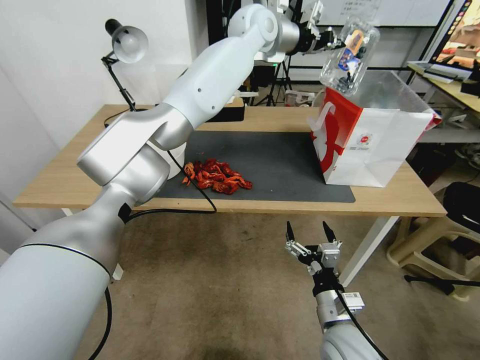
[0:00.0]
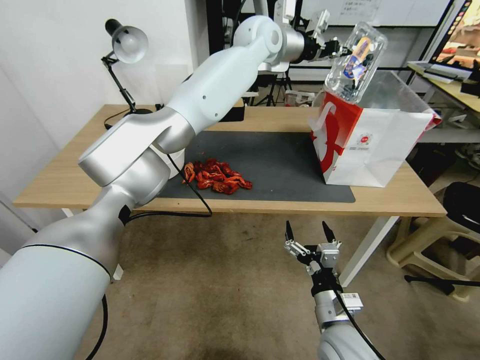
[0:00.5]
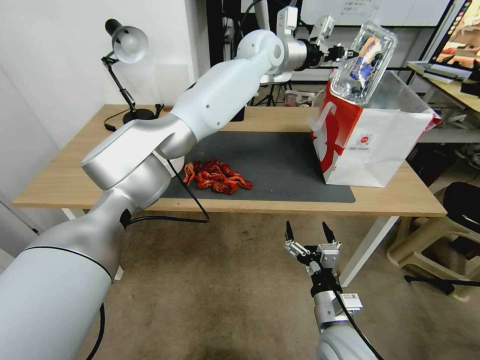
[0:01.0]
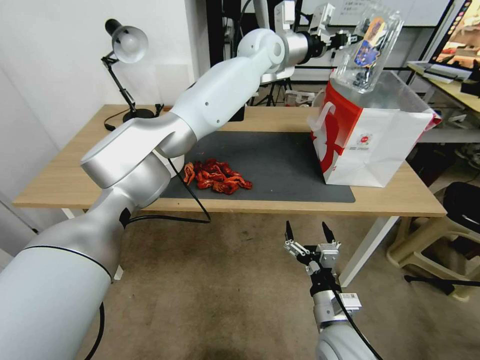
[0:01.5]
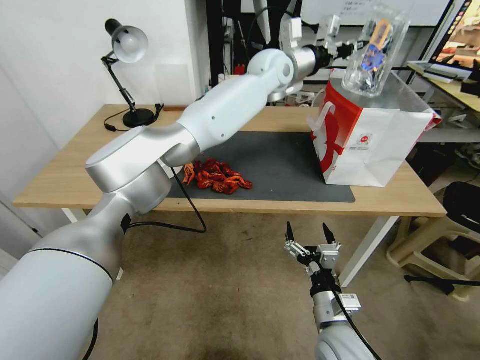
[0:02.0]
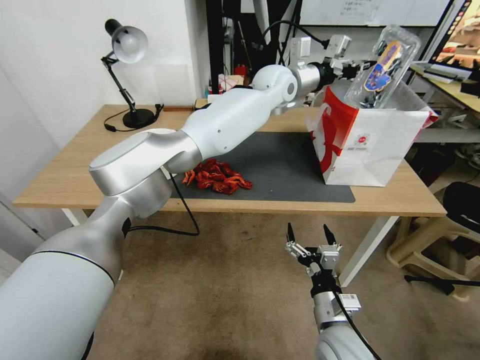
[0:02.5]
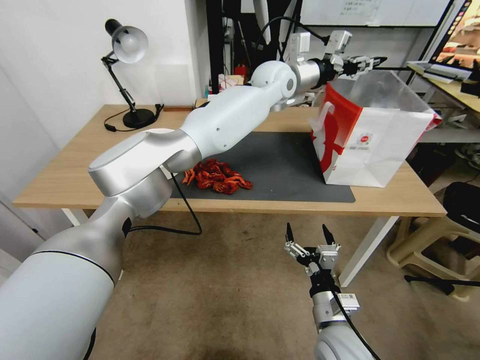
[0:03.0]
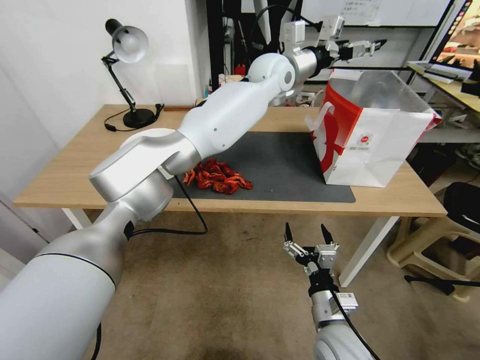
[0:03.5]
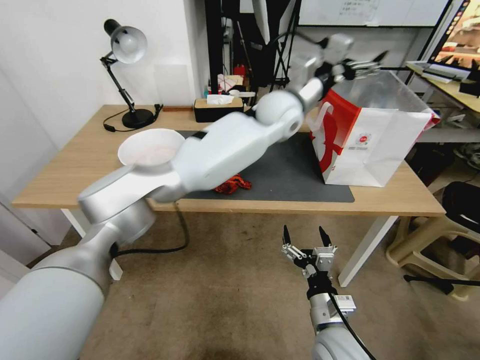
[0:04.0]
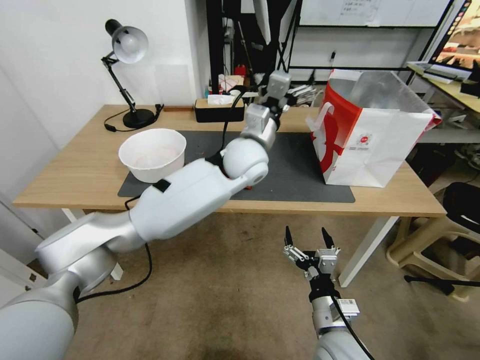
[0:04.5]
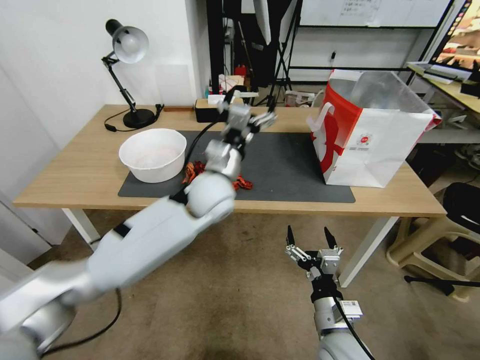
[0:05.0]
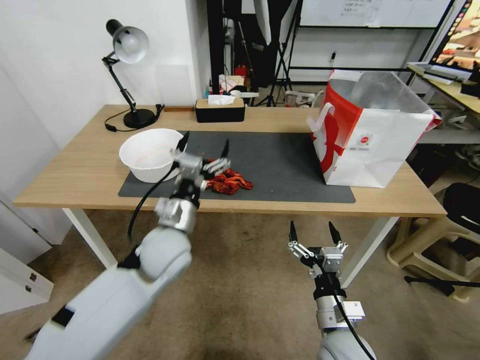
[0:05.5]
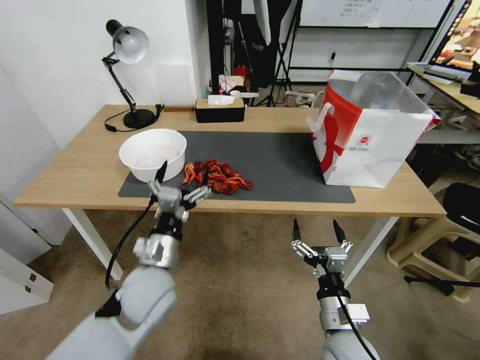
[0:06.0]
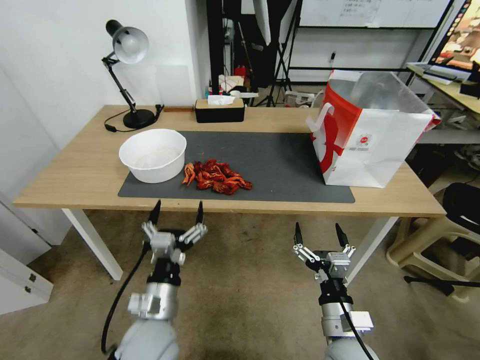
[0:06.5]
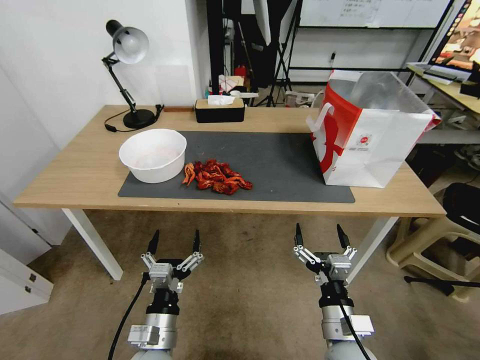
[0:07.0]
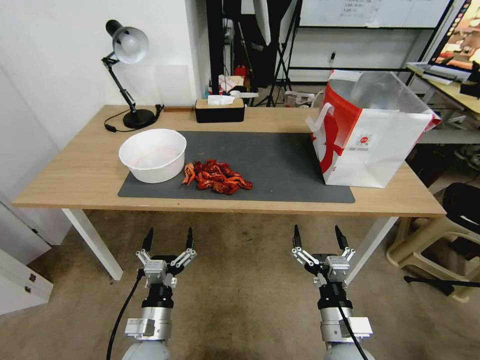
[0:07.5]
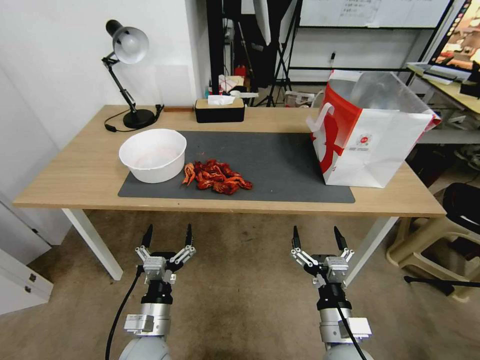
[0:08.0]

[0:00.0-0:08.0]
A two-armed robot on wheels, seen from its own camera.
Task of the whole recording: Close the takeout container lid, then place the container into the takeout bag.
0.0 to 2.0 s: The left gripper travels downward by roughly 10 cm.
2.0 to 4.0 s: The left gripper goes about 10 cm backward, and opens up.
4.0 to 6.0 s: The left gripper is displaced backward, to the left and downward by about 50 cm.
6.0 to 8.0 s: The left gripper is displaced downward and backward by some 15 cm.

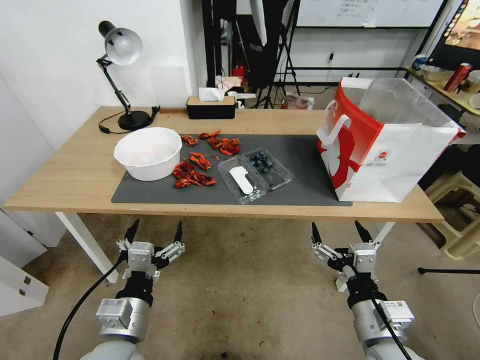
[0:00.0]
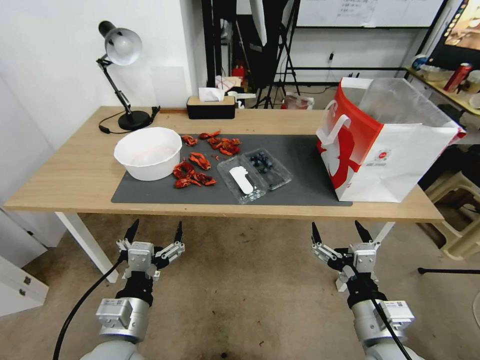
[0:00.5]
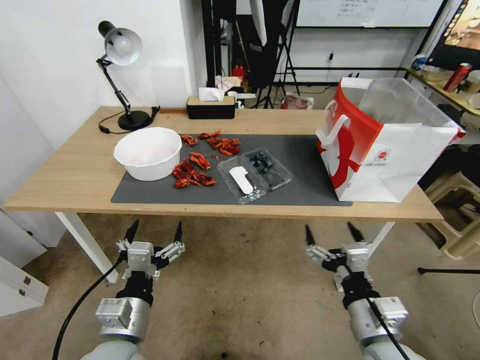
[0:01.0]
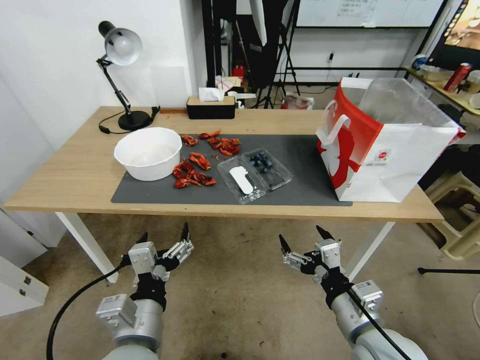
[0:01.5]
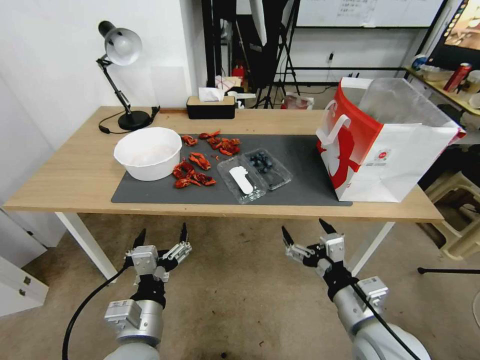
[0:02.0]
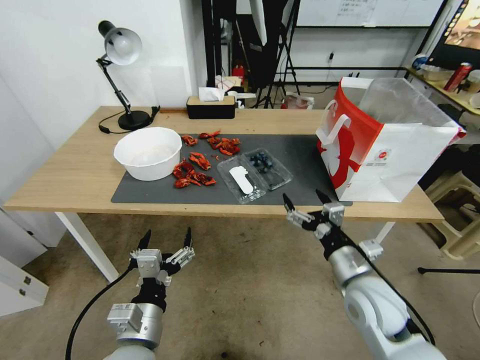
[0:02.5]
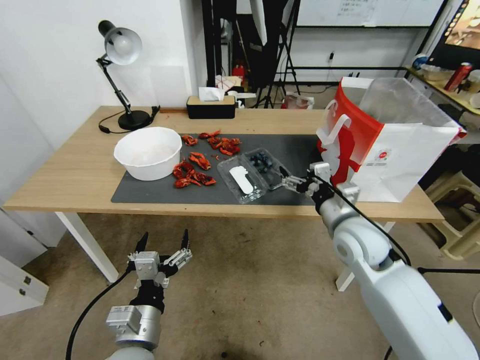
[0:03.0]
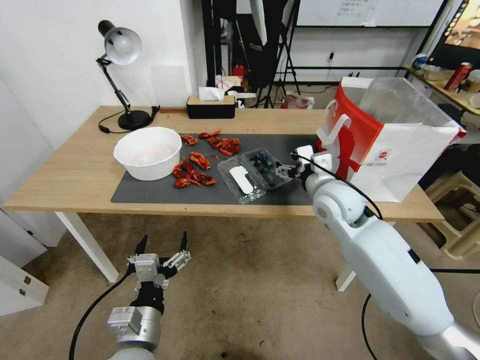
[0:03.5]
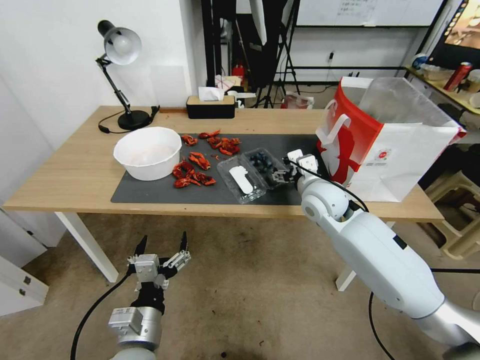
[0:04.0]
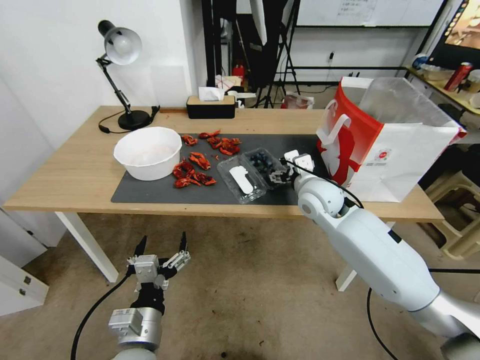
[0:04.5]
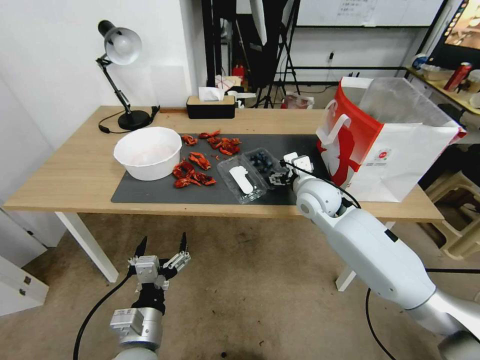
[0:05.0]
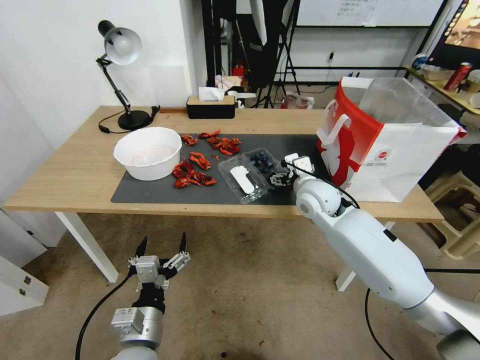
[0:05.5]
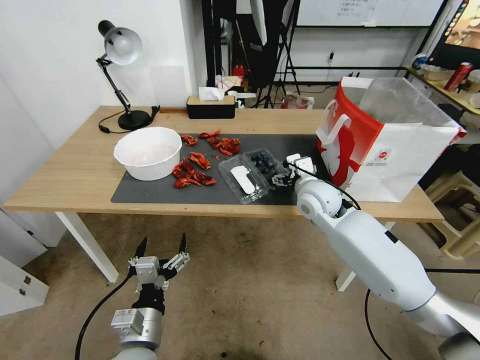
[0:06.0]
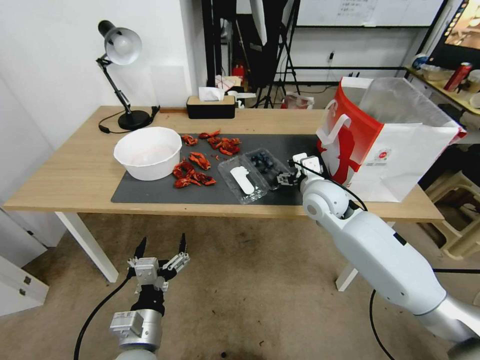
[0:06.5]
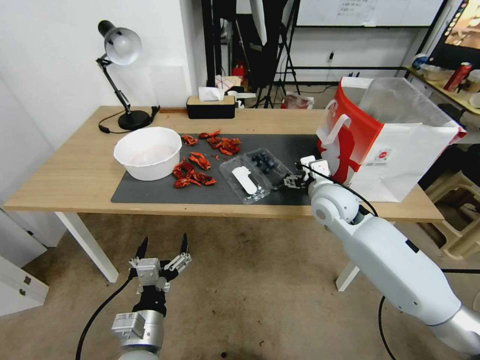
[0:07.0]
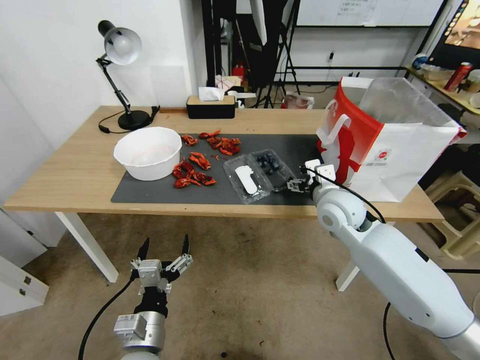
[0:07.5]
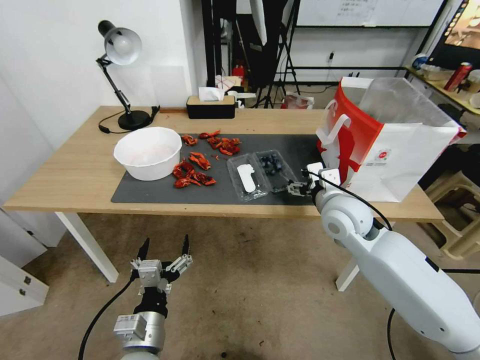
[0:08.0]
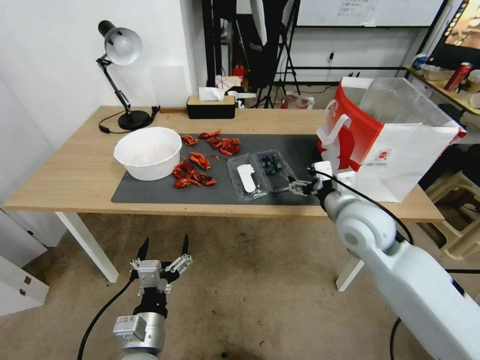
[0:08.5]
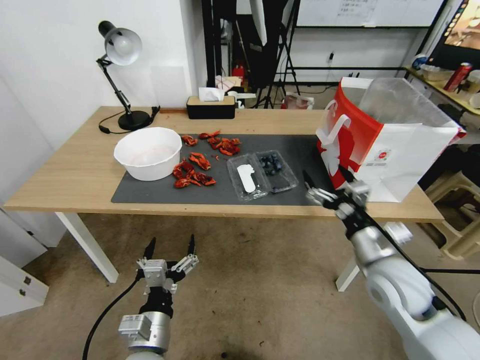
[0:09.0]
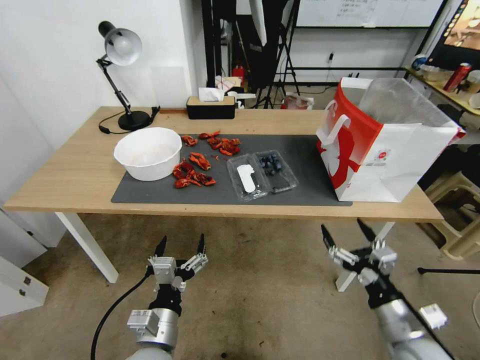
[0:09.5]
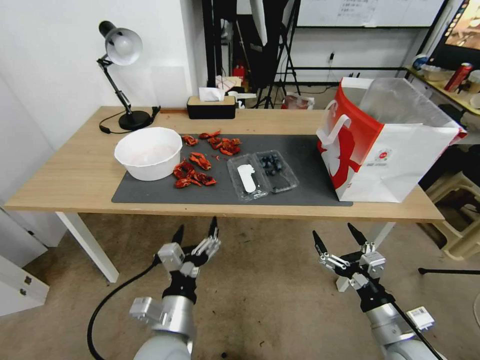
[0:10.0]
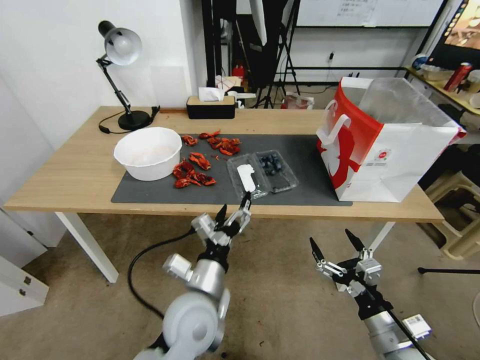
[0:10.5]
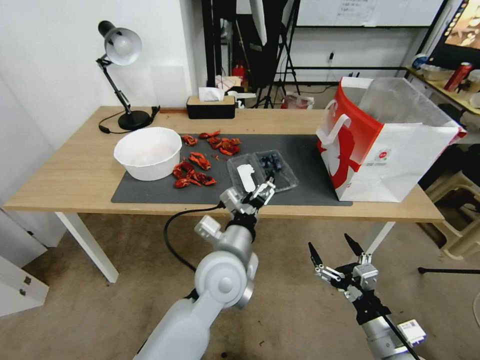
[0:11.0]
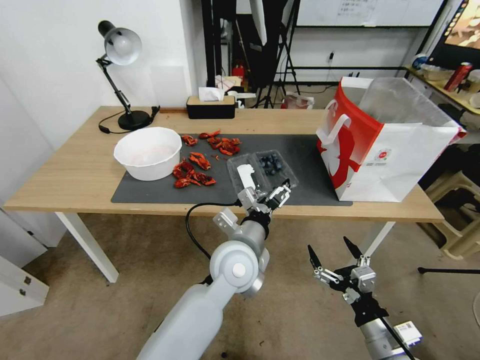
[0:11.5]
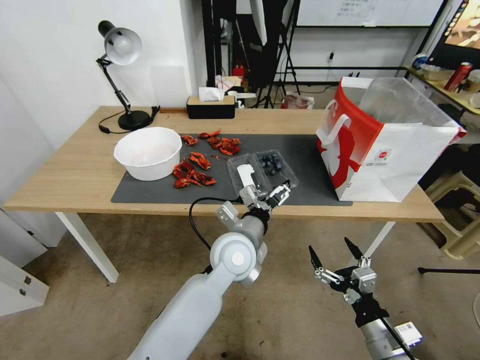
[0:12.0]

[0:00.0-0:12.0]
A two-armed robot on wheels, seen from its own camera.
Task of the whole recording: Close the takeout container lid, then place the container into the takeout bag.
2.0 to 4.0 s: The right gripper shifts roughly 25 cm forward.
4.0 to 6.0 s: The grippers move only a little.
6.0 to 8.0 s: The right gripper is displaced backward by some 5 cm.
8.0 to 10.0 s: The right gripper shifts some 25 cm backward and downward; the left gripper moves to the right, roughly 5 cm.
10.0 to 12.0 s: The left gripper travels forward and to the right by approximately 20 cm.

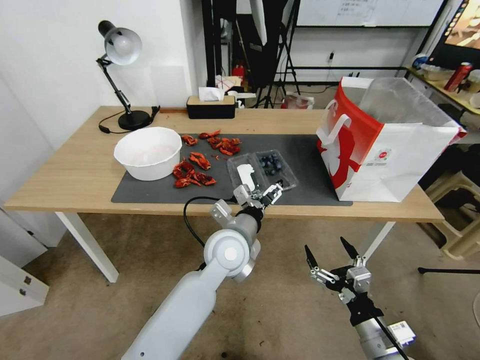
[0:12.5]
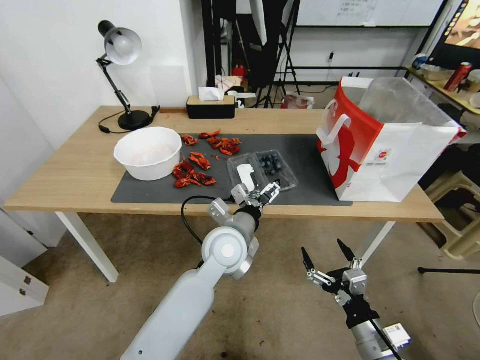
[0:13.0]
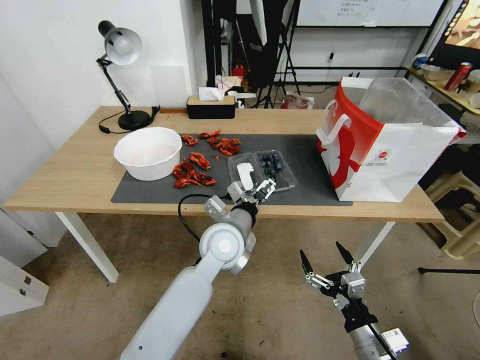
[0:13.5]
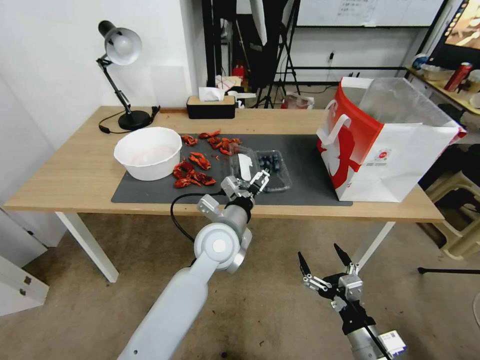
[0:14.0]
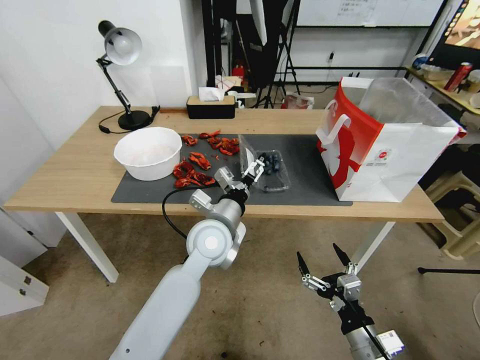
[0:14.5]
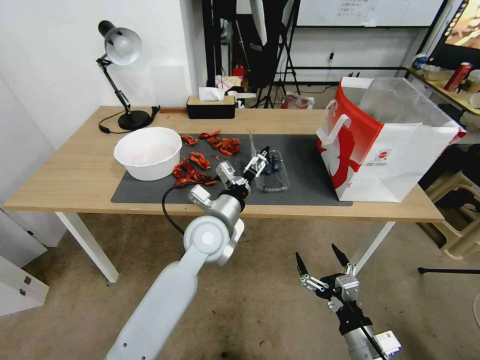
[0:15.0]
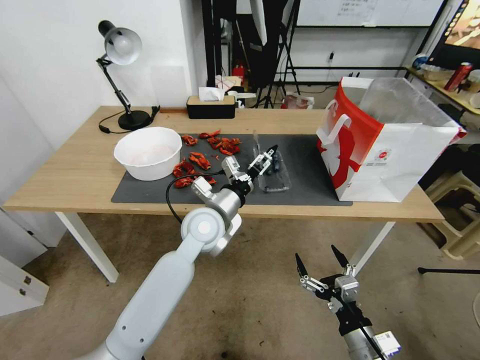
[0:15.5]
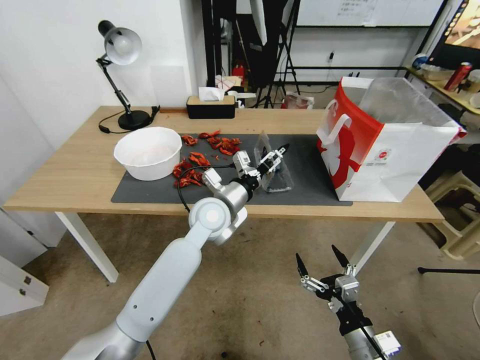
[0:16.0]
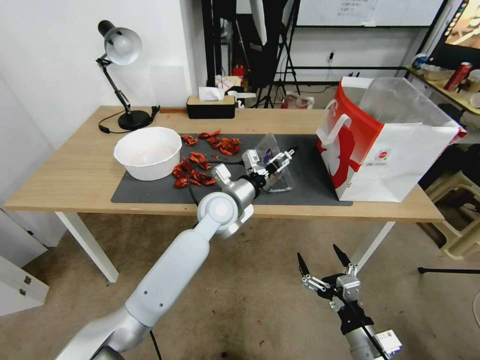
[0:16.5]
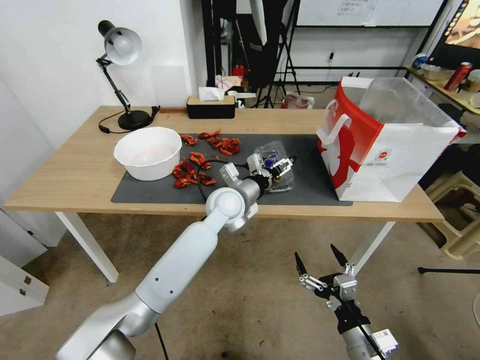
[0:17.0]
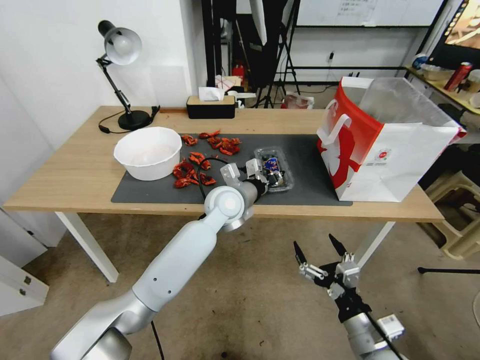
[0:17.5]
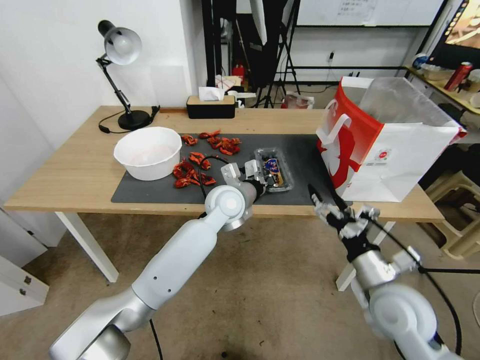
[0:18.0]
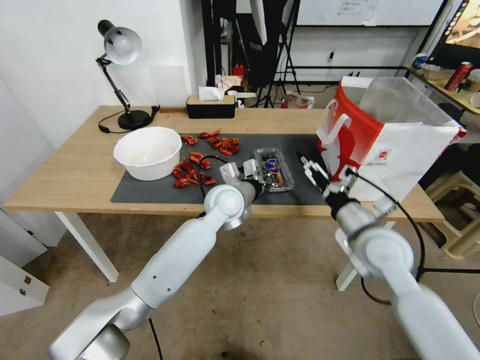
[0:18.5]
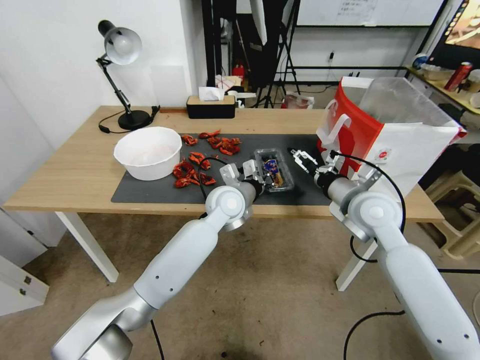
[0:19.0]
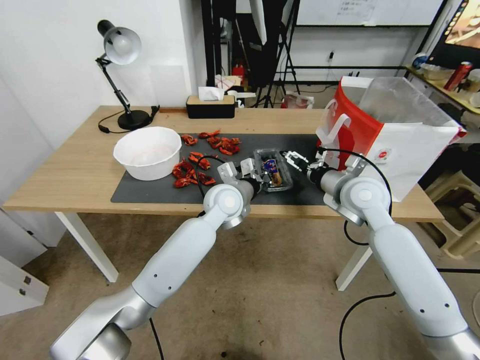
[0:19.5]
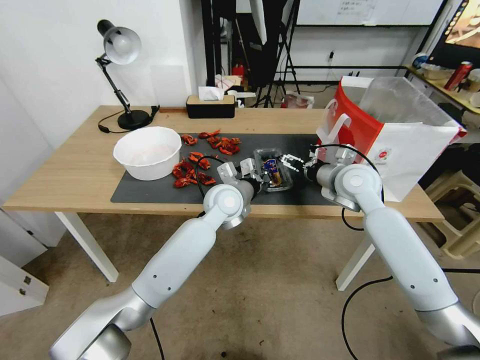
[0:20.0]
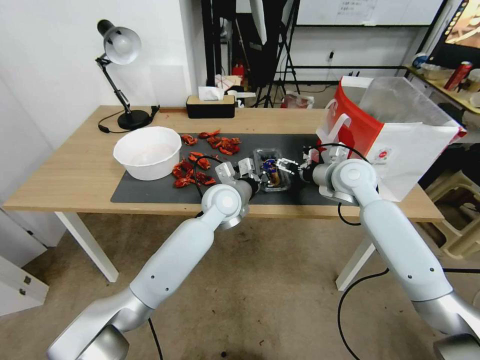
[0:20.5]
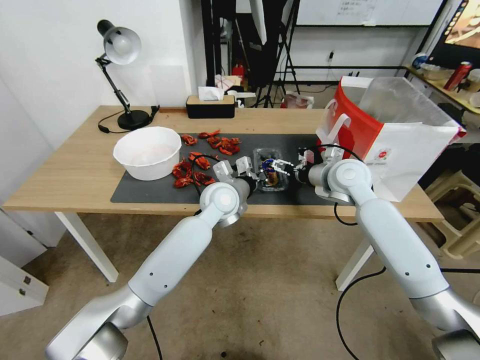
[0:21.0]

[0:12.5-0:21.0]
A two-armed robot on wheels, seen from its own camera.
Task of the whole recording: Close the takeout container lid, then place the container into the takeout bag.
12.5 to 14.5 s: The grippers make only small movements.
14.5 to 16.5 s: The left gripper goes some 10 cm forward.
16.5 to 19.0 s: The left gripper closes up, while the right gripper moves forward and upward, about 35 cm.
19.0 to 21.0 s: The right gripper is displaced forward by roughly 10 cm.
